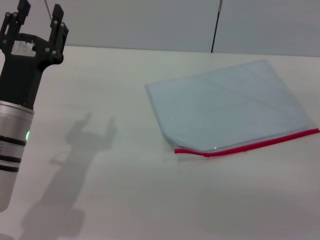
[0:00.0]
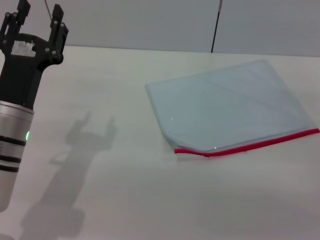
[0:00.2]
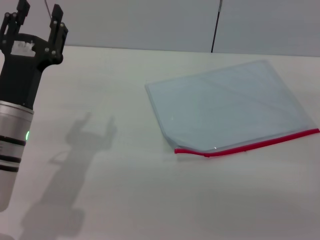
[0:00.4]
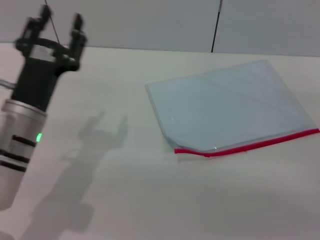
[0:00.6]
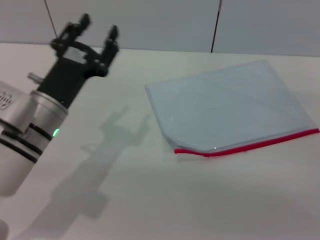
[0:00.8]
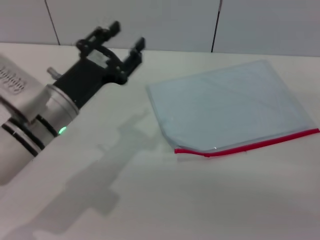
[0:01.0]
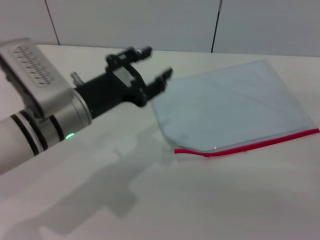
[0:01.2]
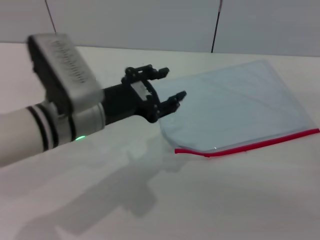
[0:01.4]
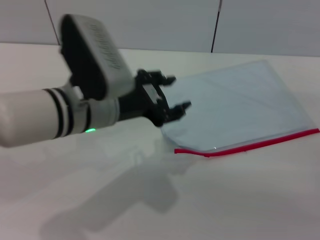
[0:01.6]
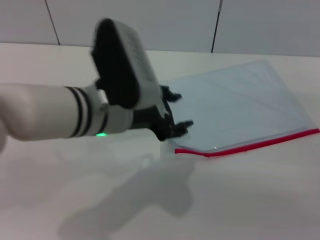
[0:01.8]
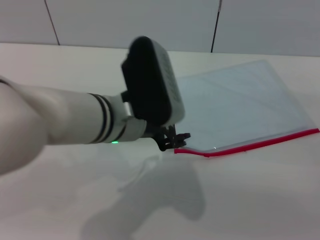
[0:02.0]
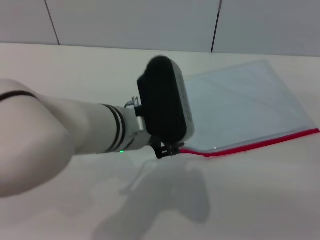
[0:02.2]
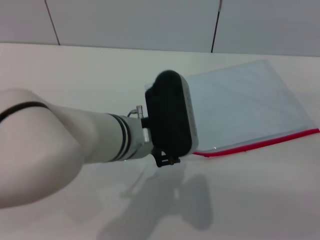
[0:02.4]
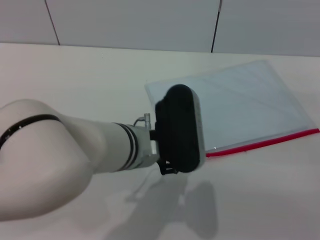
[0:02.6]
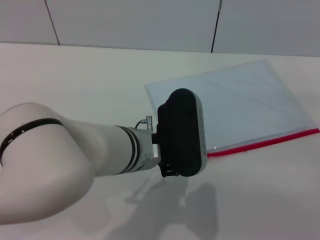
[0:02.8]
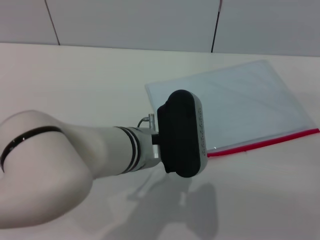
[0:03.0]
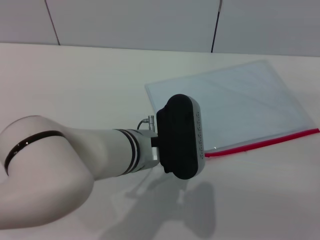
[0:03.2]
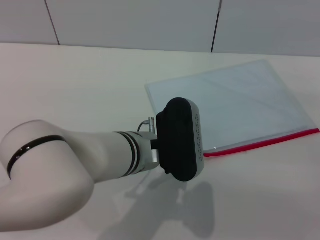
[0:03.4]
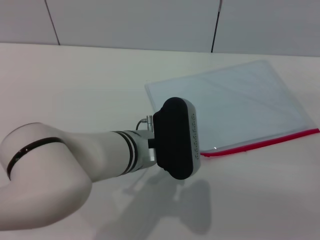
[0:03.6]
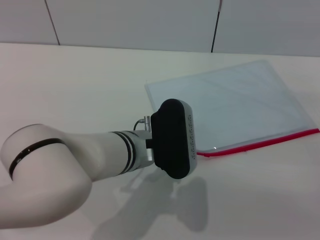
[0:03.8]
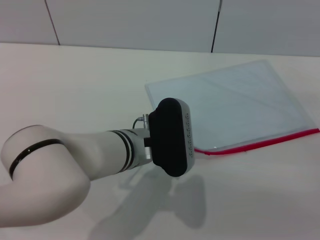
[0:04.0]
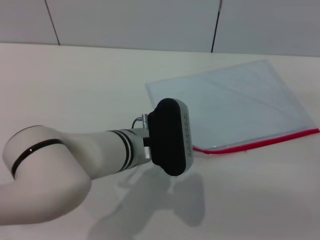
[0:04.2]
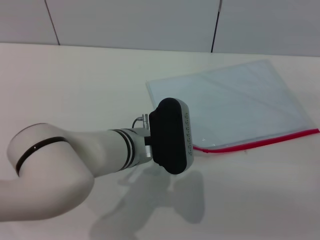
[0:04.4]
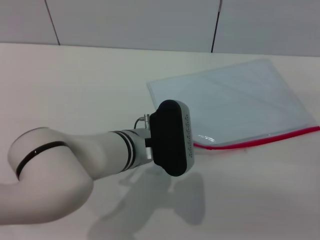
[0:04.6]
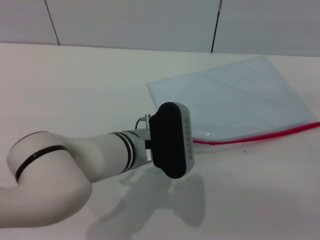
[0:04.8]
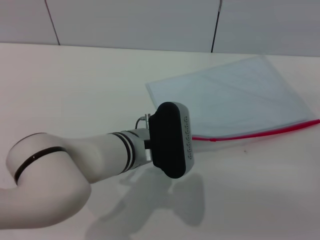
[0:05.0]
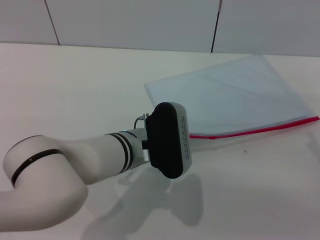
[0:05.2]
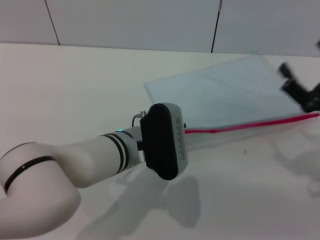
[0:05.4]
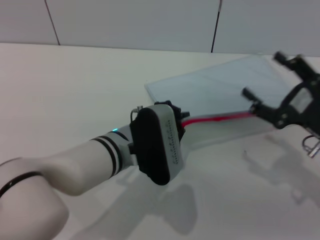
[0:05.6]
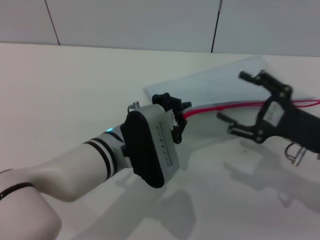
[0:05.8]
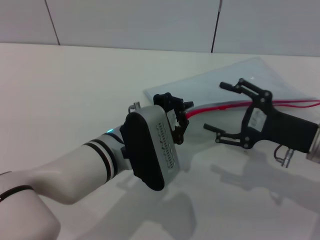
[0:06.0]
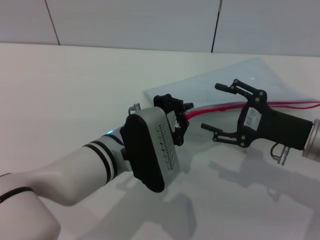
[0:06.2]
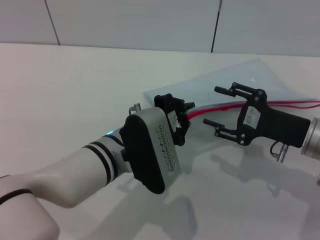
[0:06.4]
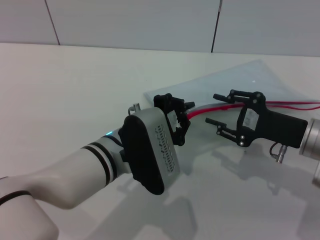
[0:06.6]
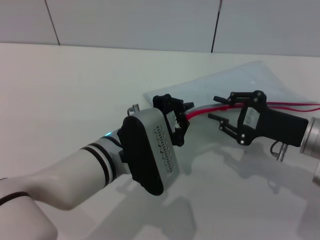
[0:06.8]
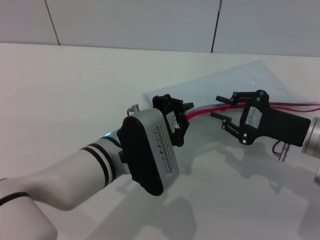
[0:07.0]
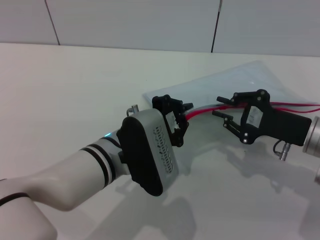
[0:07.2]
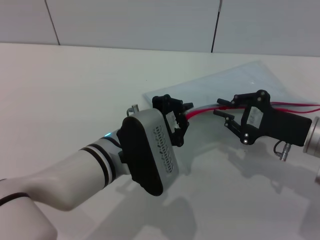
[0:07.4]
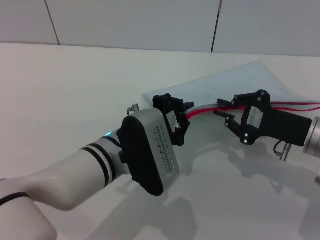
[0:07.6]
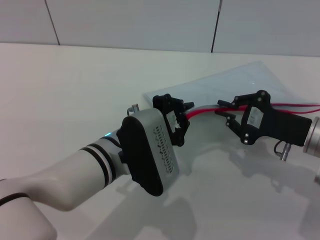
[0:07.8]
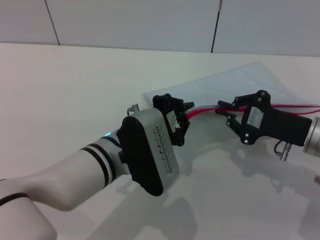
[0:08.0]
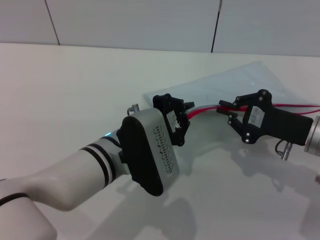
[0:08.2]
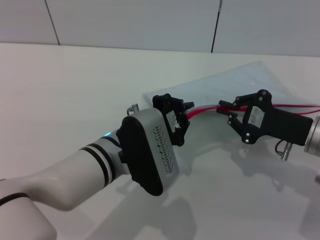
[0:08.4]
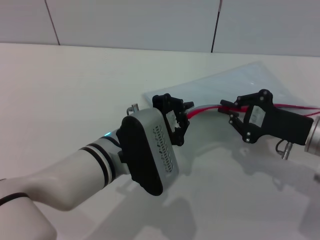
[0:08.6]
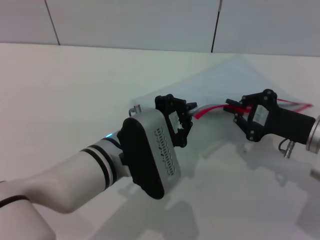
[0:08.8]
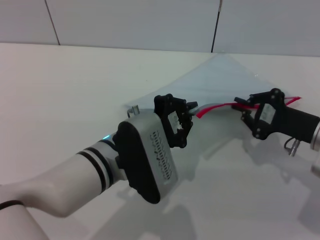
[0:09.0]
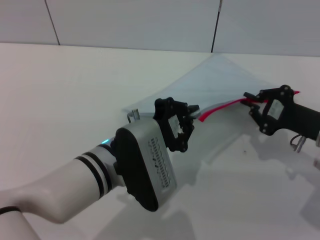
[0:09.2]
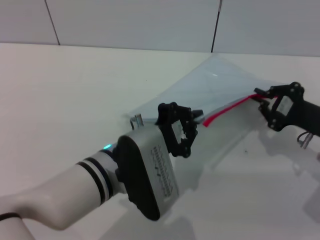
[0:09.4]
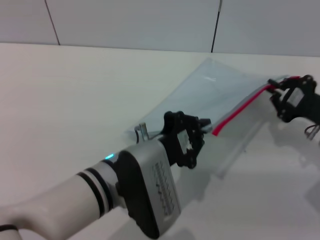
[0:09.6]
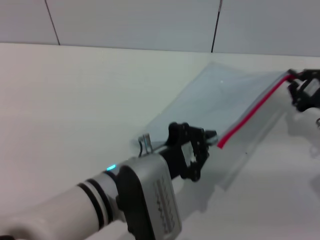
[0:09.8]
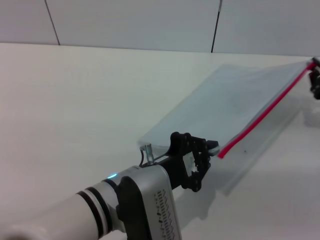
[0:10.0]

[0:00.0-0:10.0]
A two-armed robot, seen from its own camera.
Step, 0:00.0 to 0:05.4: Pick up the transparent plastic bag with the left gripper.
0:00.0 to 0:01.4: The left gripper is displaced to the right by approximately 5 cm.
0:01.4 to 0:02.8: The left gripper is displaced to the right by some 10 cm.
0:02.8 to 0:04.2: The left gripper shifts by approximately 5 cm.
0:04.2 to 0:05.8: The right gripper shifts approximately 5 cm to the left. Meanwhile the left gripper closes its fingers.
0:05.8 to 0:07.2: The right gripper closes up.
0:07.2 to 0:08.6: Both grippers stay put.
0:08.6 to 0:10.0: The left gripper travels backward by approximately 5 cm. Meanwhile the right gripper shifts roughly 10 cm to the right.

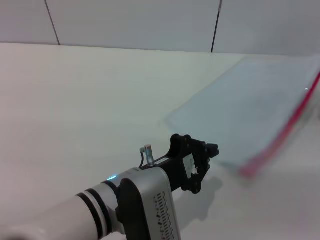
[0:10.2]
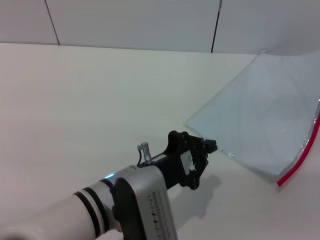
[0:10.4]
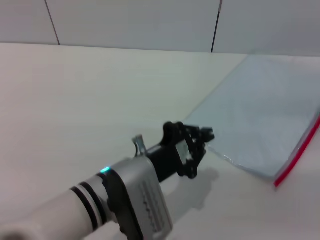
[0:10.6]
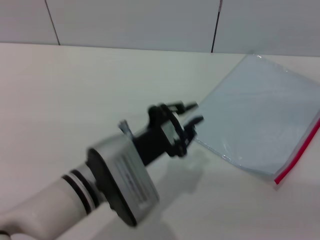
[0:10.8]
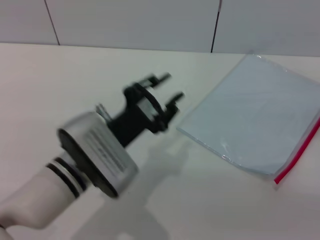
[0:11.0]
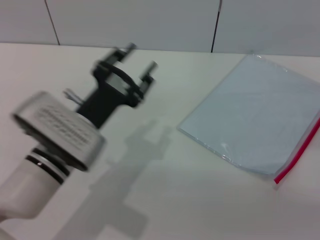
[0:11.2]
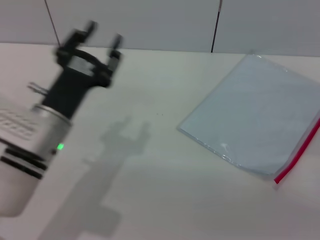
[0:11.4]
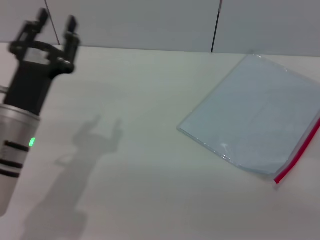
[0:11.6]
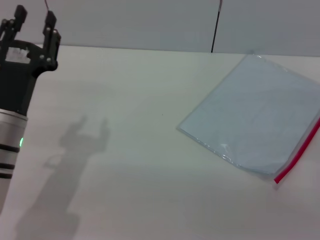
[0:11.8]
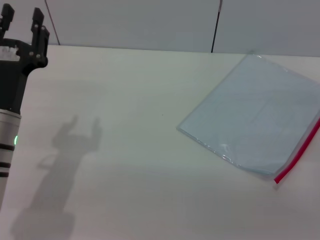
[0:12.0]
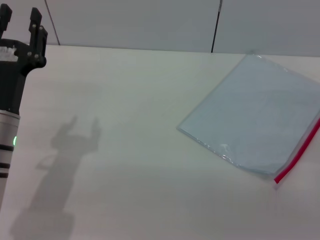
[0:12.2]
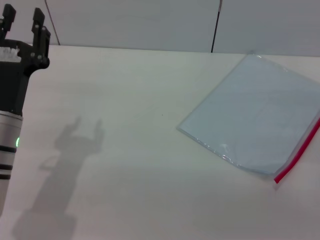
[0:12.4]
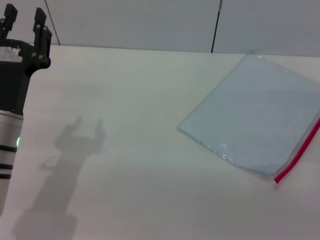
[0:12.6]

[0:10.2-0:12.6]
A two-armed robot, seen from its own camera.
Step, 0:10.8 to 0:11.4: Place the transparent plastic bag.
0:10.2 to 0:11.4: The right gripper goes roughly 10 cm backward, and opens up. Meanwhile the left gripper heads to the left and forward, covering about 10 cm, and opens its fingers.

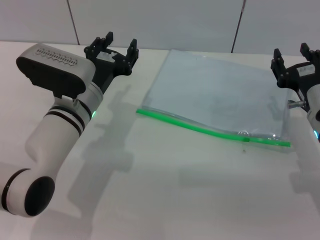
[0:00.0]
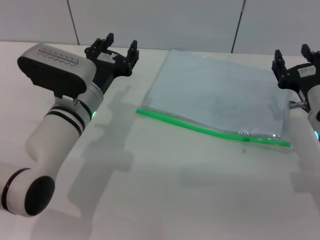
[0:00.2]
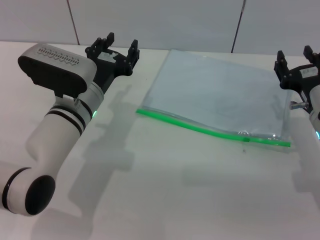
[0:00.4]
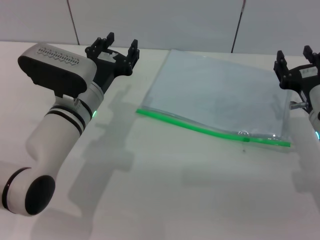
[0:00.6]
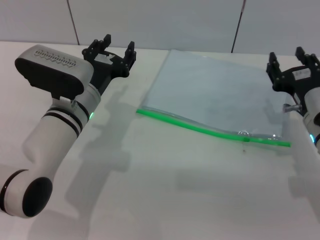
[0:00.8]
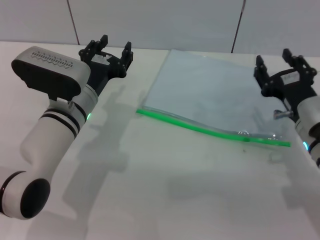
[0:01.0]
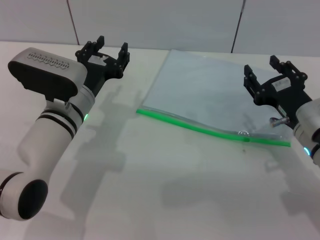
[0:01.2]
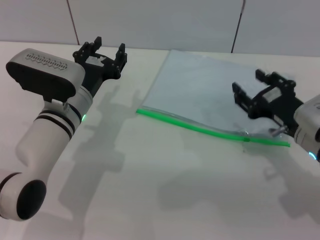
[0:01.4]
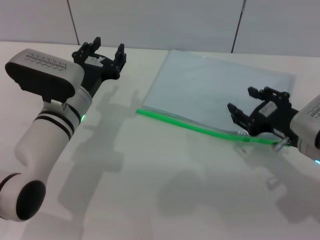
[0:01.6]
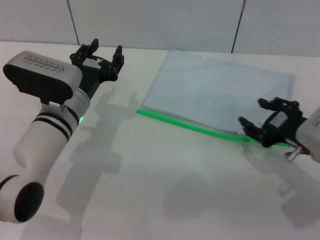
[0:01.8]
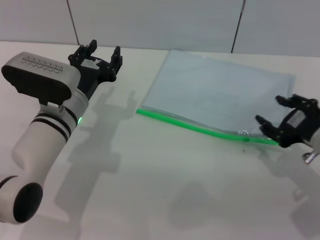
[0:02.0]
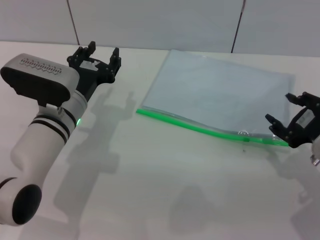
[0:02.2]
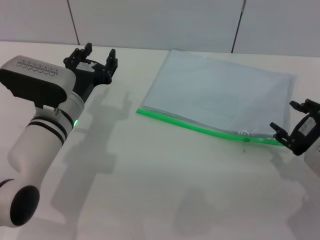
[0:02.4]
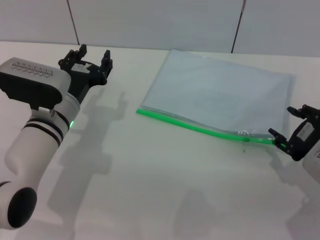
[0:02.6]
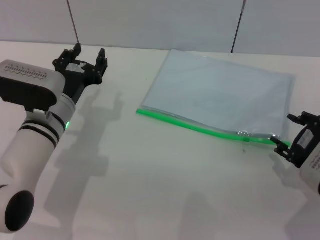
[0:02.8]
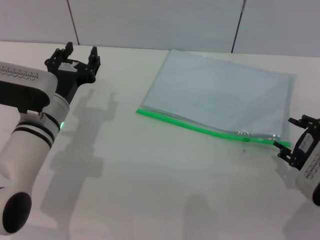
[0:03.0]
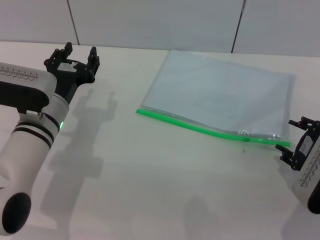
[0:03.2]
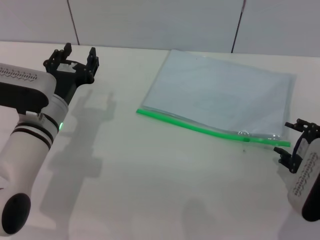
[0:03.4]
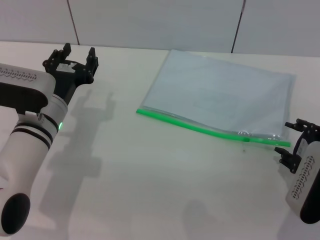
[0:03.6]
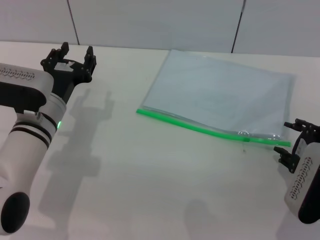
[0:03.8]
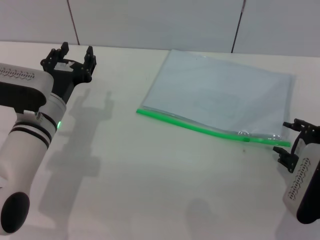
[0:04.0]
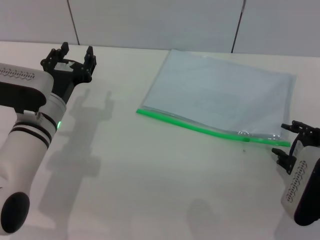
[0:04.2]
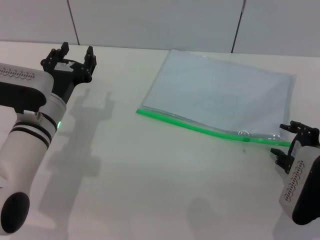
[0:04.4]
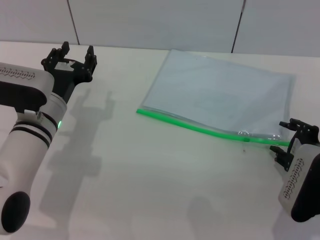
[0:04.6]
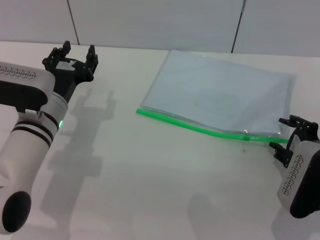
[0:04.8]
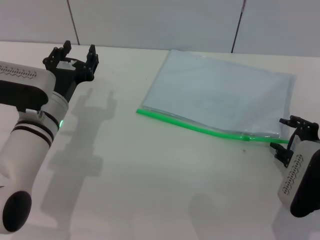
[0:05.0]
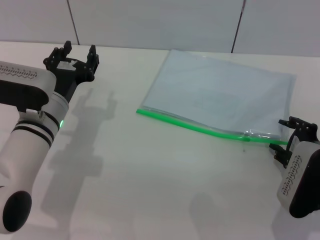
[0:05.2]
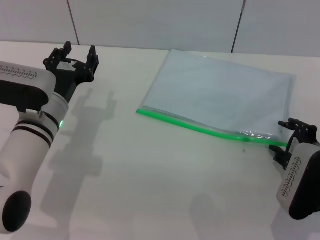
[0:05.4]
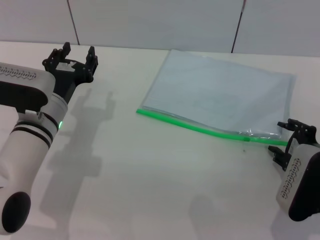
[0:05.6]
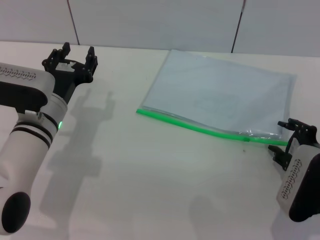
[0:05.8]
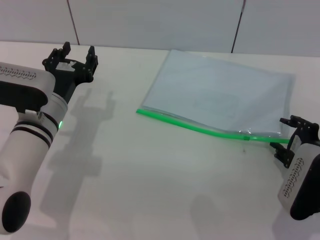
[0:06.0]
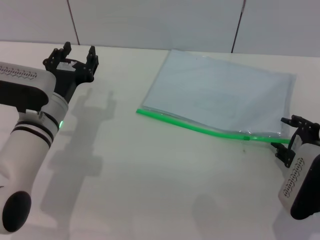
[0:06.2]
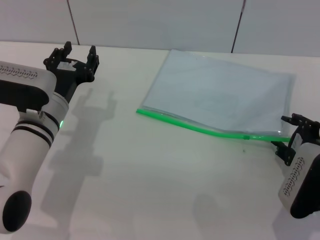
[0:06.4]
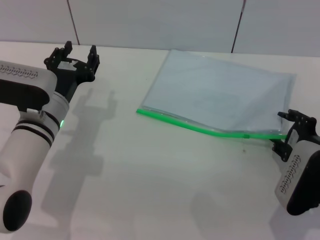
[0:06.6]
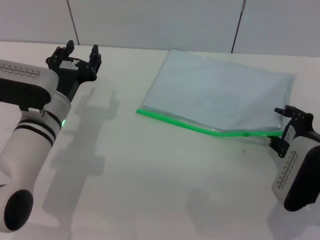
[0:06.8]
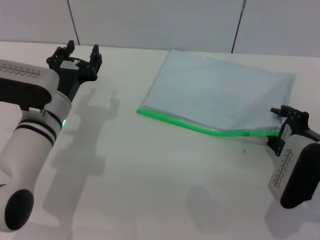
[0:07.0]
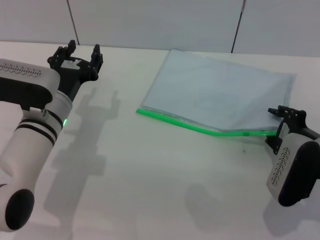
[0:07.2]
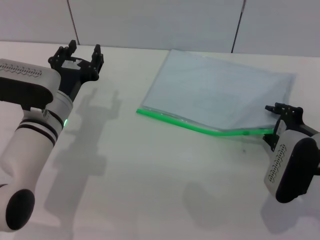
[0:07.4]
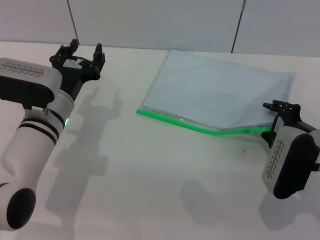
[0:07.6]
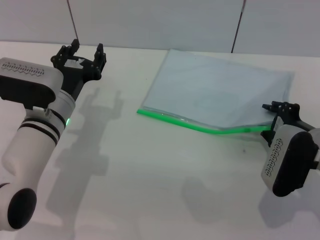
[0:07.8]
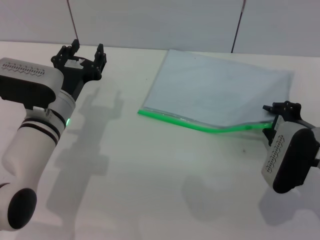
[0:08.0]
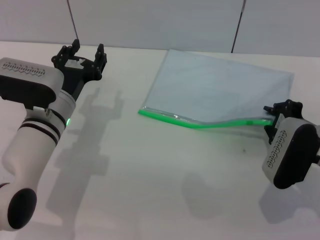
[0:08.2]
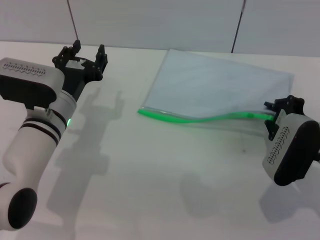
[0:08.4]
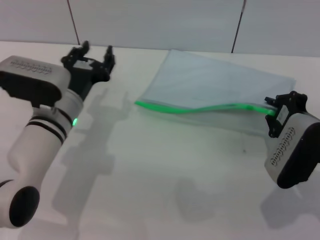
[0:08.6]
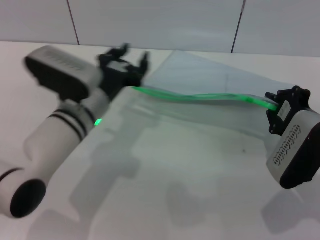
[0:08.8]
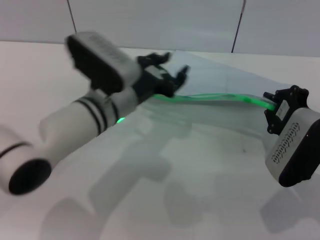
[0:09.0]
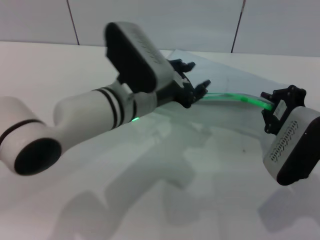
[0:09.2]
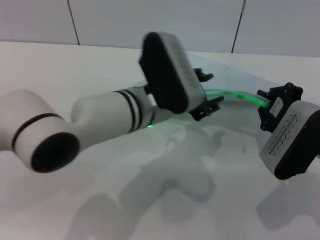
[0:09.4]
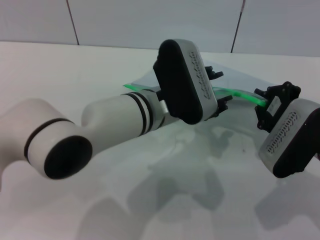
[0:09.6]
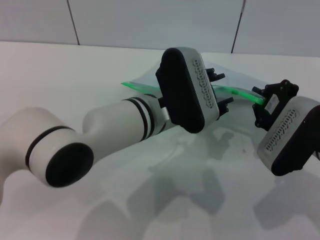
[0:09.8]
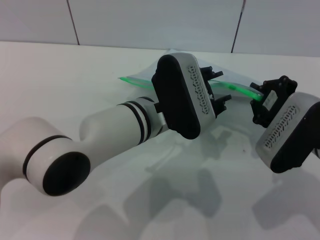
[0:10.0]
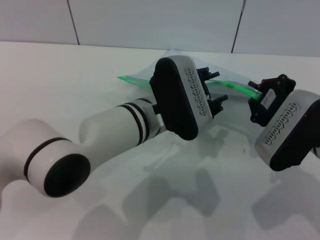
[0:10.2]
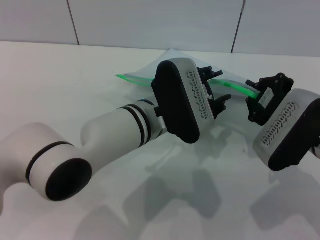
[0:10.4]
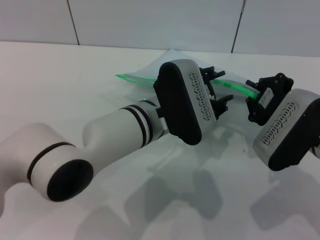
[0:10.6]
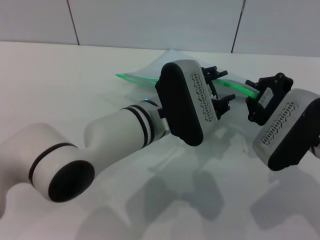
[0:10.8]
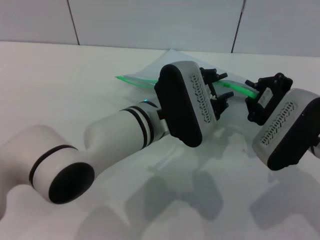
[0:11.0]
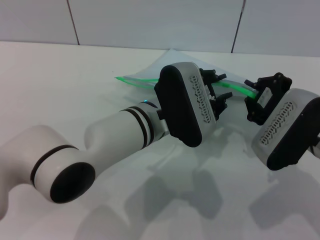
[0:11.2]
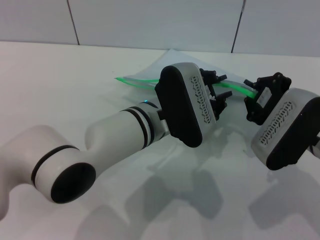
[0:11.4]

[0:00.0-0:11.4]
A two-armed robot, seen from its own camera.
Step, 0:00.0 to 0:09.0: Pick up the transparent plastic bag with the right gripper.
0:01.4 to 0:02.8: The right gripper shifts by approximately 5 cm.
0:02.8 to 0:04.2: The grippers stay close to where they were, moving slightly.
0:04.2 to 0:05.6: Both grippers stay put.
0:05.6 to 0:07.2: The grippers make only small movements.
0:07.2 to 0:08.6: The right gripper closes its fingers.
0:08.6 to 0:10.0: The left gripper heads to the right and upward, covering about 15 cm.
0:10.0 to 0:11.4: Neither gripper changes place.
